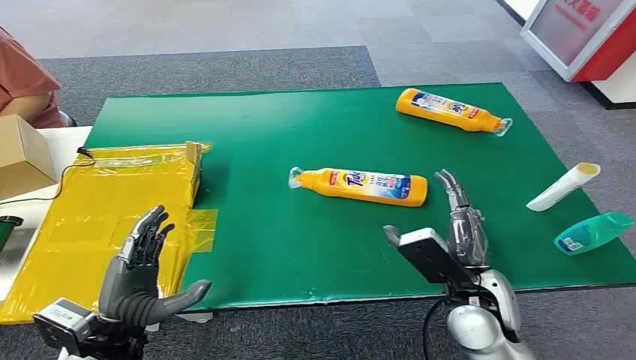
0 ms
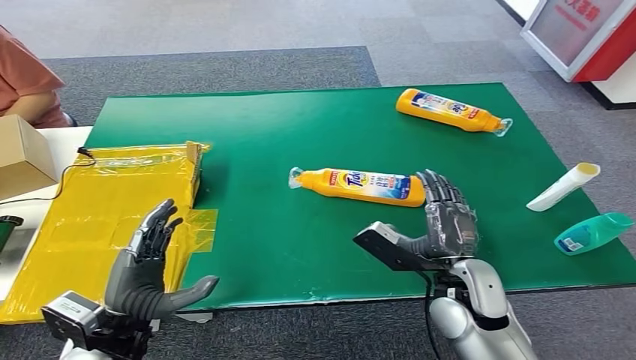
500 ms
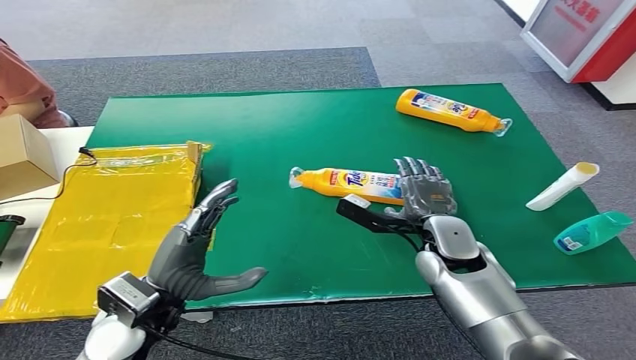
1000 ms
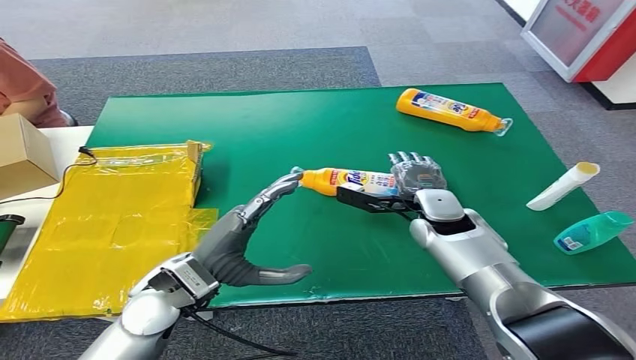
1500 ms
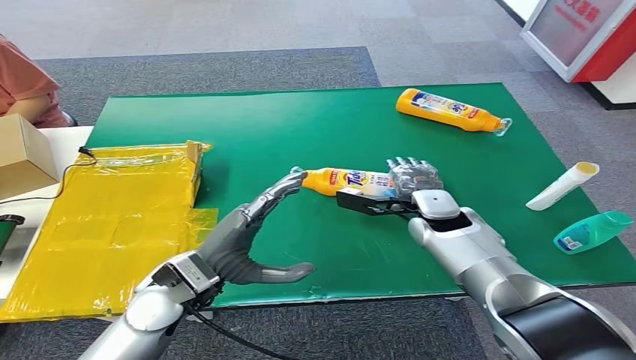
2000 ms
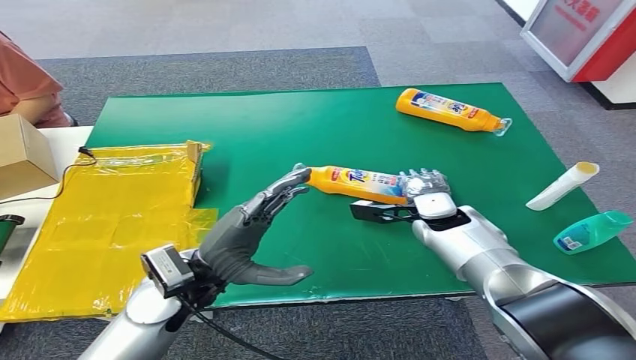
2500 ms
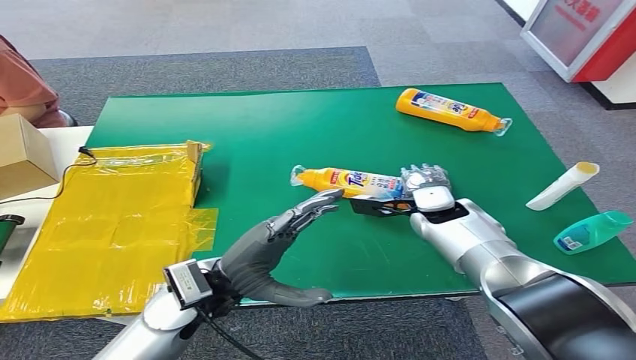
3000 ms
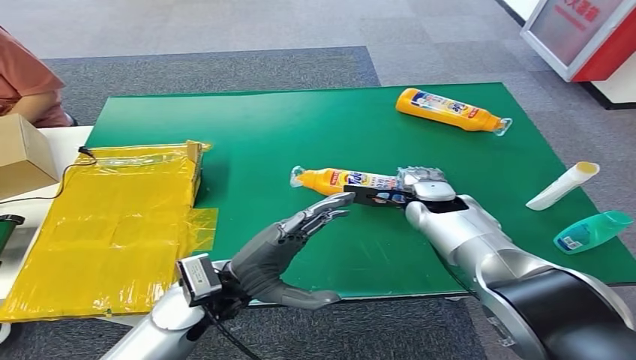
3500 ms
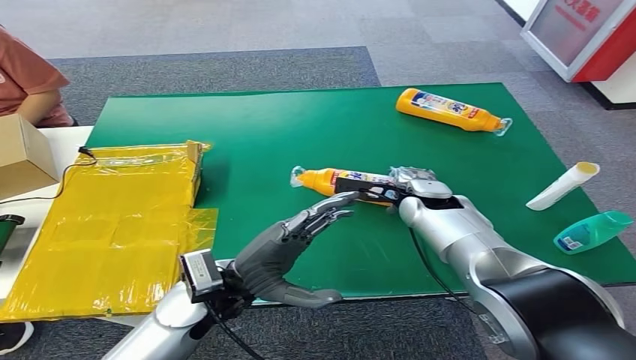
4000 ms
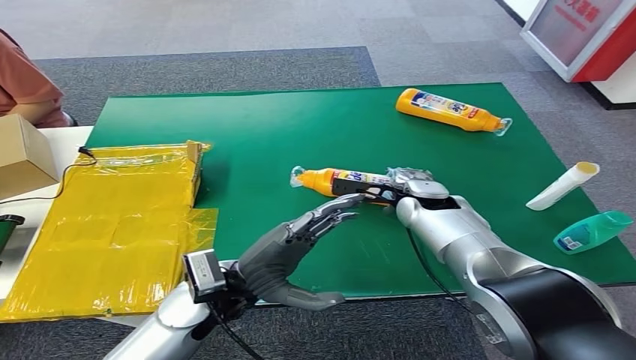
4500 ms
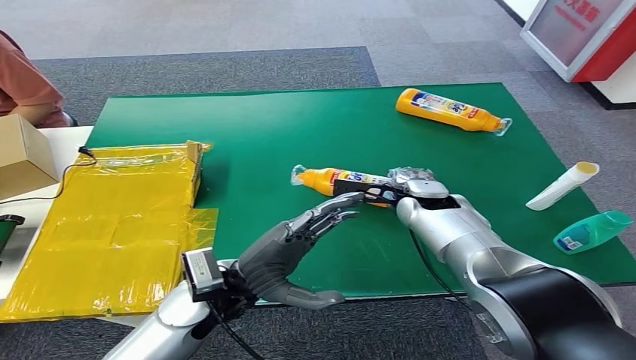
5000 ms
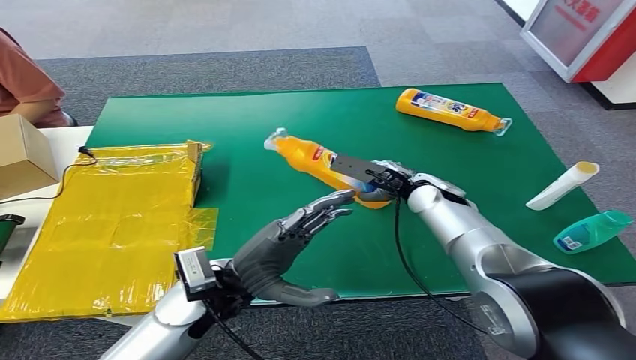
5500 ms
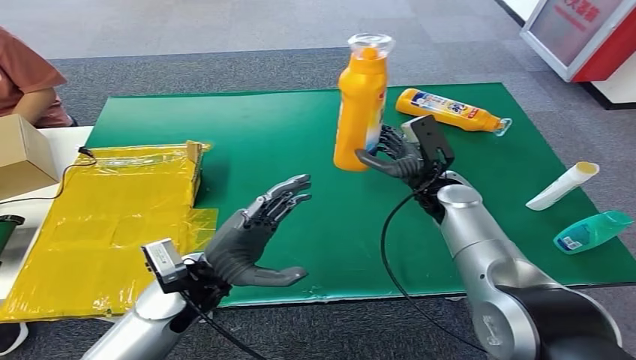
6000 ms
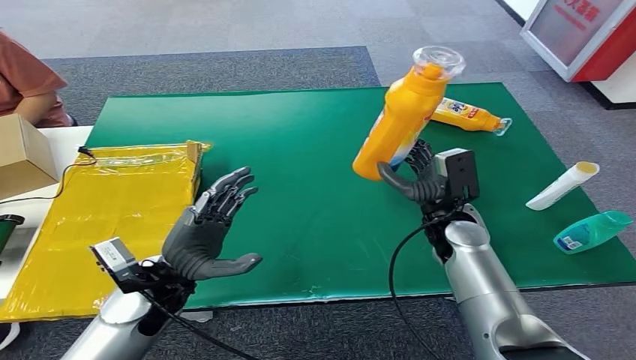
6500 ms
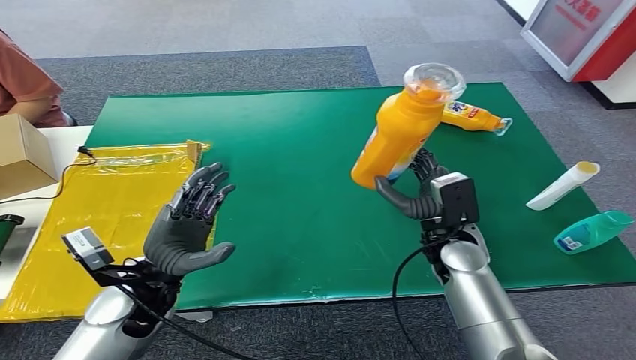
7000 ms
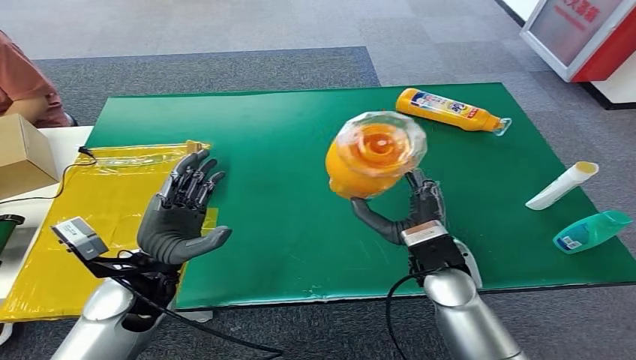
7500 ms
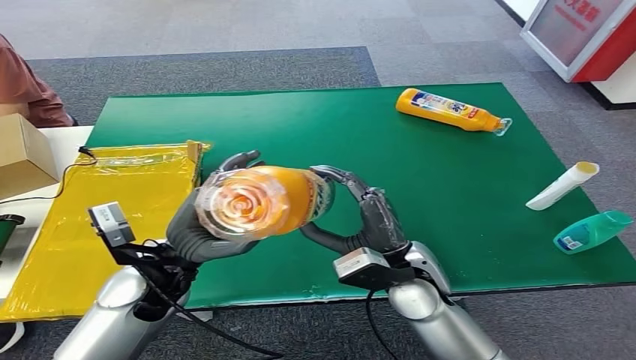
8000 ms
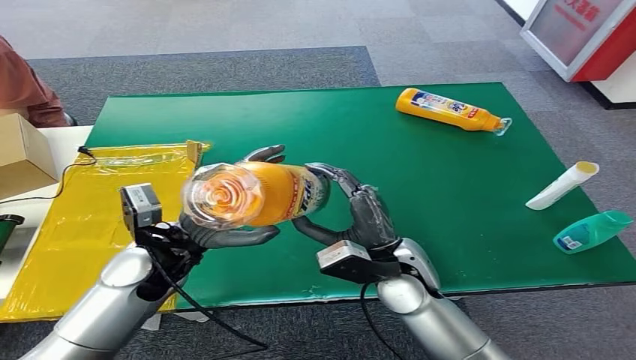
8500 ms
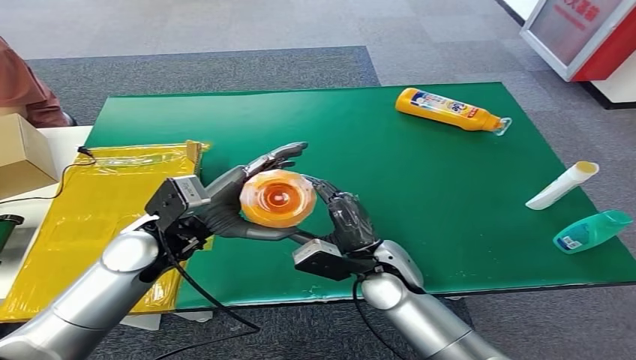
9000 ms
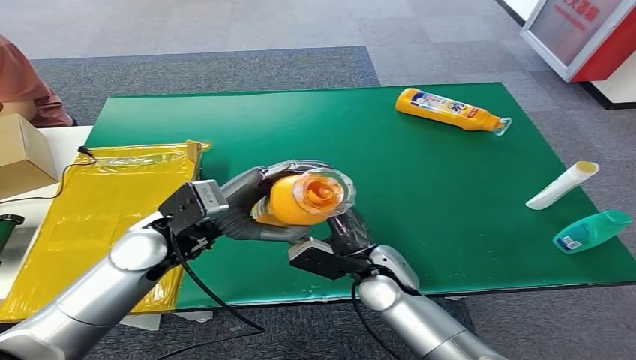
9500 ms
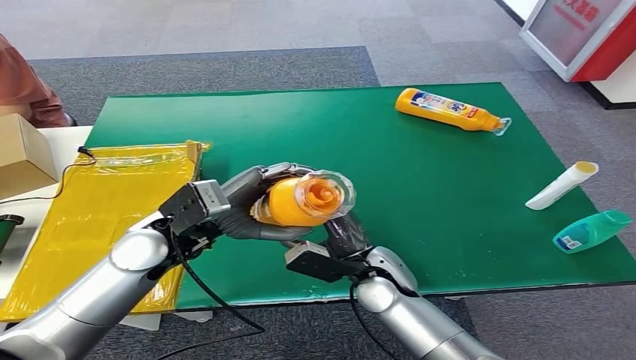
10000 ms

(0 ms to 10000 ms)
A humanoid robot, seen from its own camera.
Step, 0 ms - 6000 ms: Pick up the bottle from the table.
8000 ms - 10000 ms: The left hand changes place by approximately 5 cm. The right hand travels downward by about 5 cm.

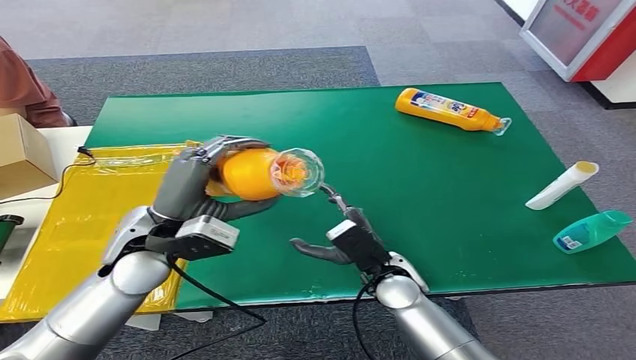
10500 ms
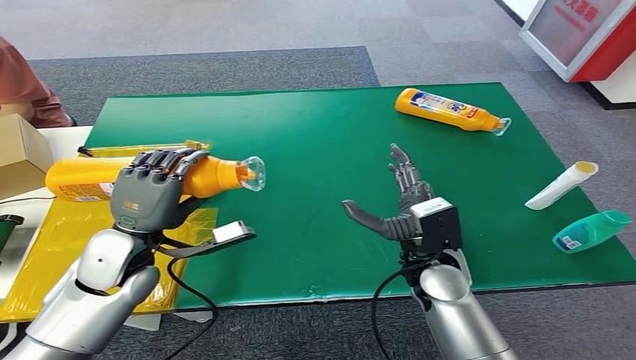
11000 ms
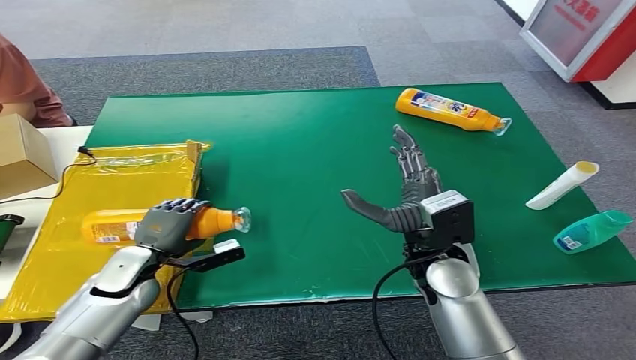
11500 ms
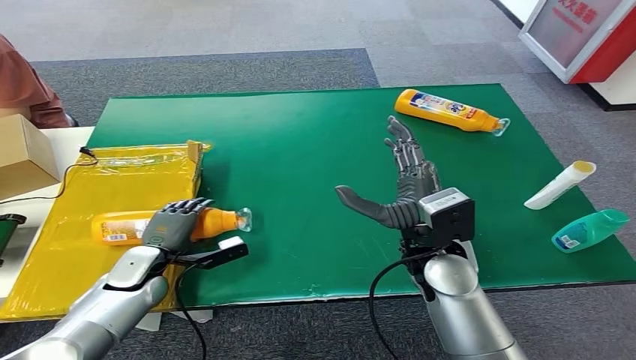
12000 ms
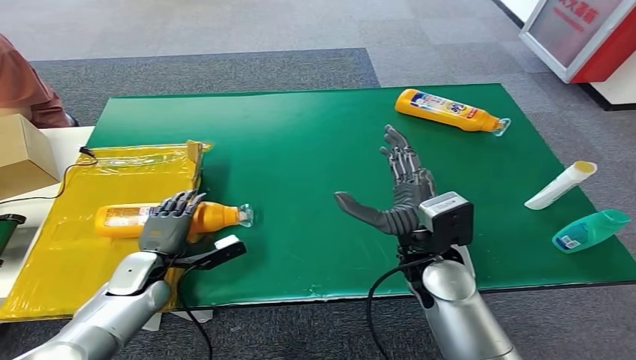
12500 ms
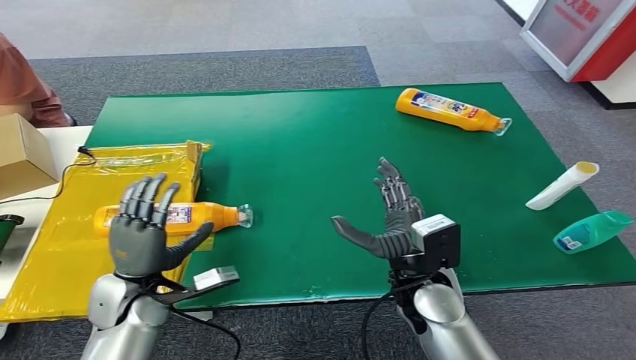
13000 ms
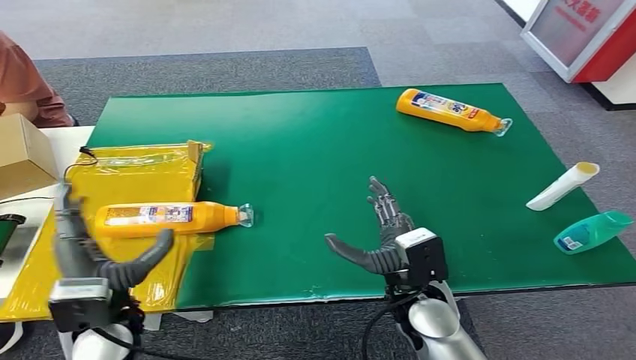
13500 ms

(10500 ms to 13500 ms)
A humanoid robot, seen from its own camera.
Step, 10500 ms - 13500 ms: Turn the bottle to the front side.
12000 ms - 13500 ms: The left hand travels backward and upward by roughly 15 cm; the right hand goes about 10 cm downward and backward.

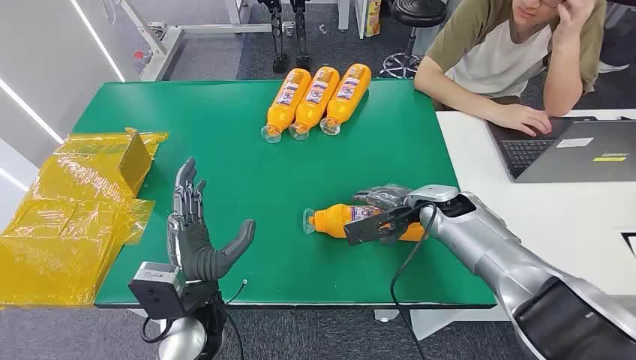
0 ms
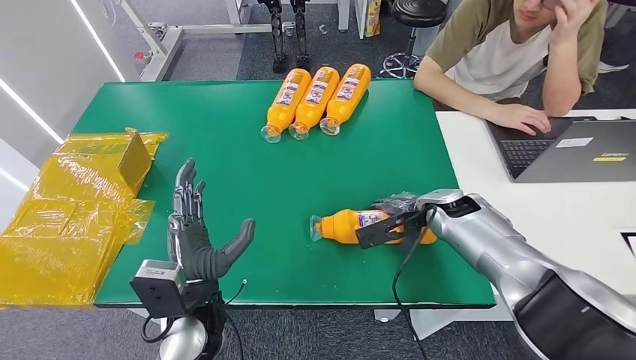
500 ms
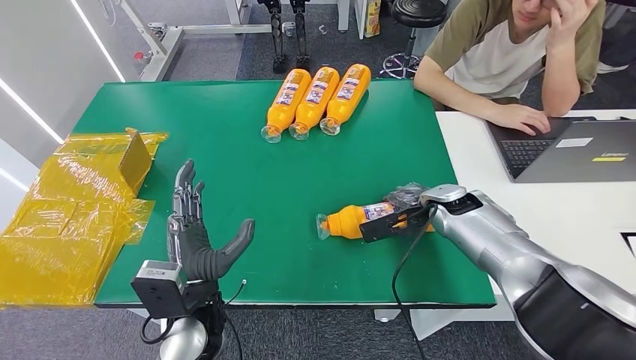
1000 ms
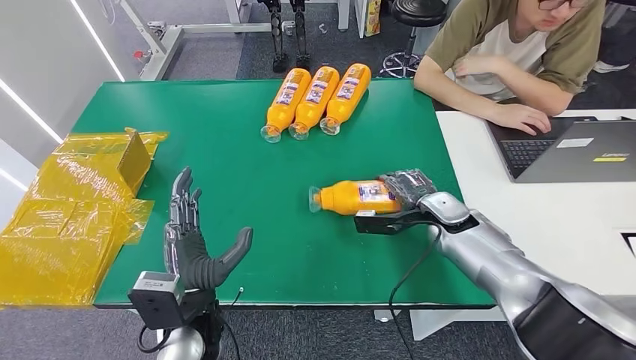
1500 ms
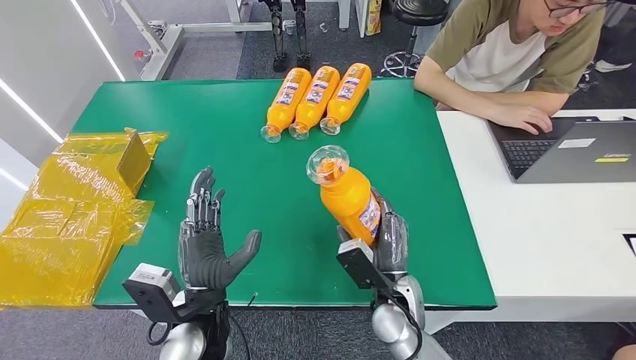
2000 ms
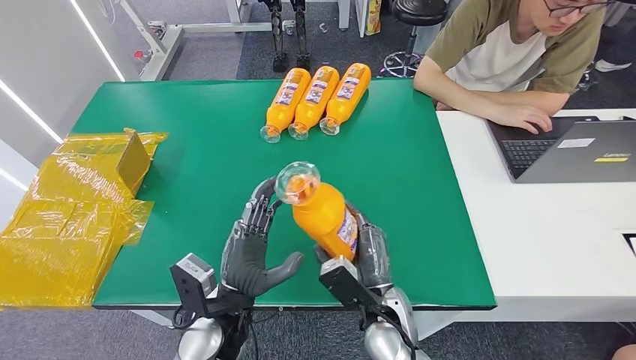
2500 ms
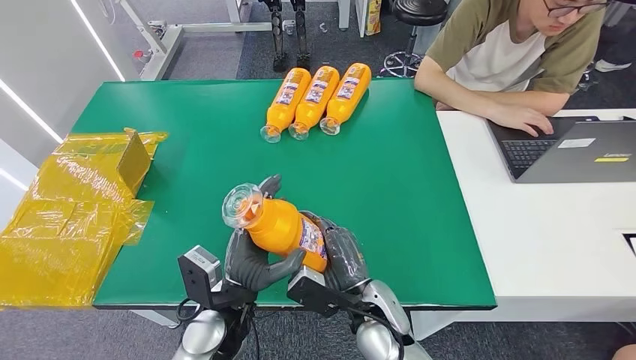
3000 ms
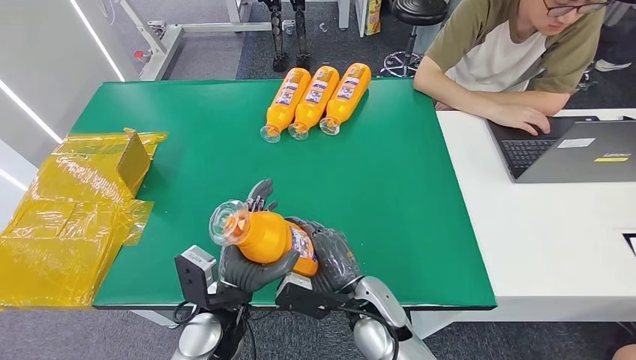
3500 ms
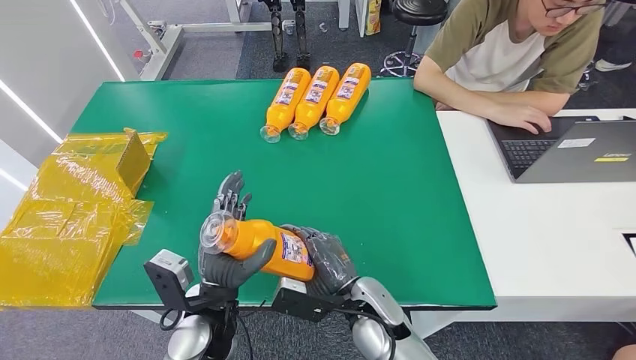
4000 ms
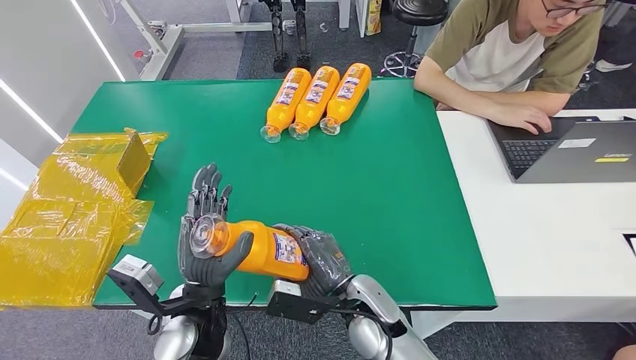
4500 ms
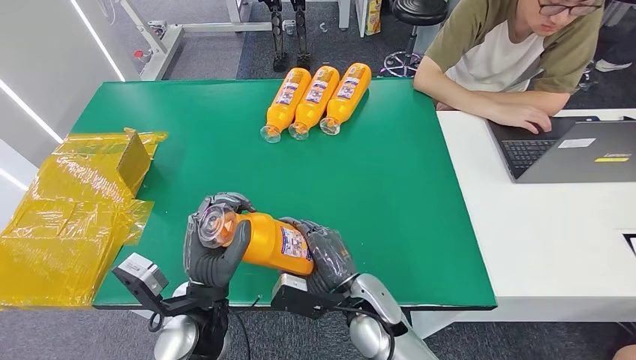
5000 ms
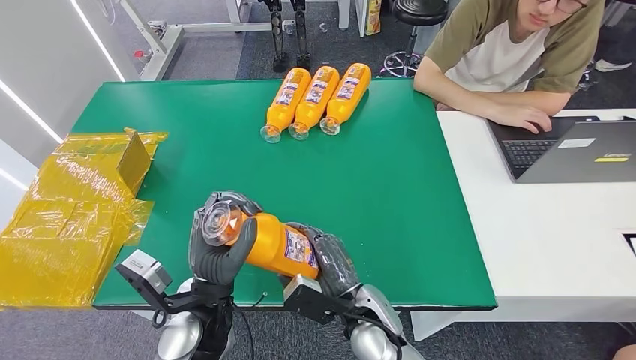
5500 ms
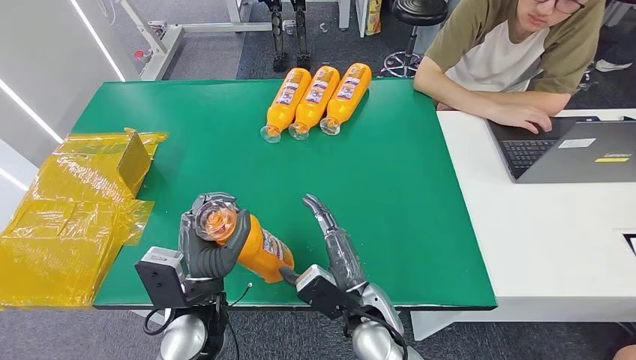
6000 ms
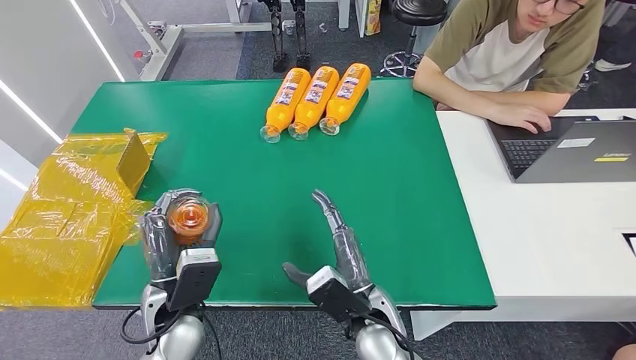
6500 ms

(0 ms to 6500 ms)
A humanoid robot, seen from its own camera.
Step, 0 ms - 2500 ms: Pick up the bottle from the table.
2000 ms - 4500 ms: The right hand goes roughly 5 cm to the left.
